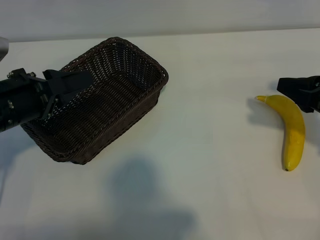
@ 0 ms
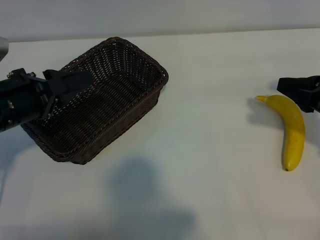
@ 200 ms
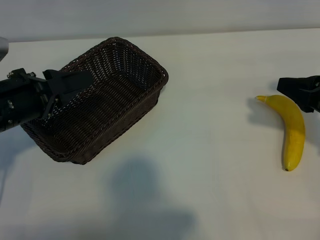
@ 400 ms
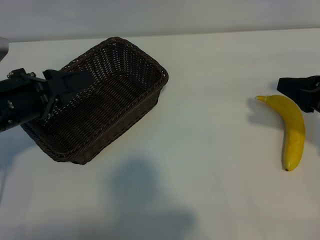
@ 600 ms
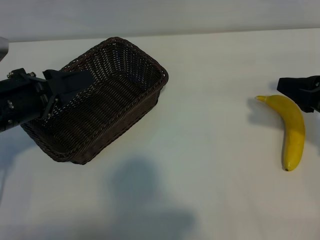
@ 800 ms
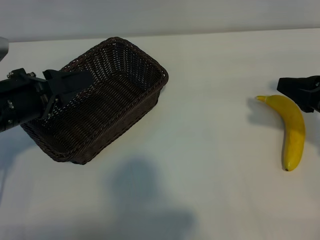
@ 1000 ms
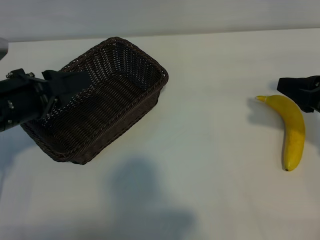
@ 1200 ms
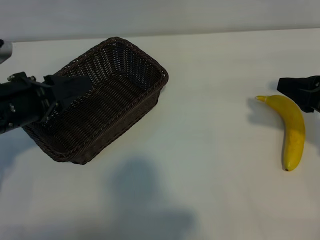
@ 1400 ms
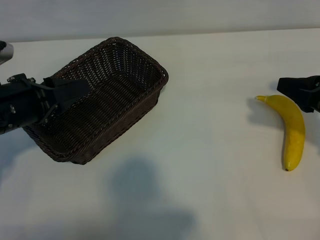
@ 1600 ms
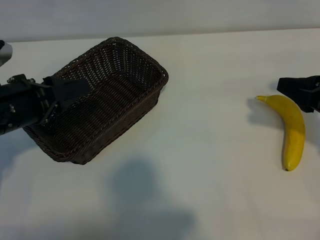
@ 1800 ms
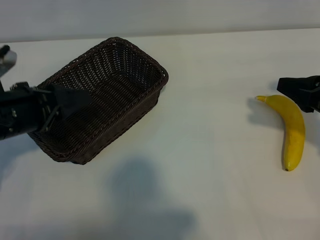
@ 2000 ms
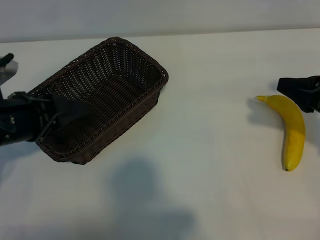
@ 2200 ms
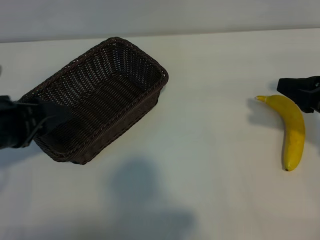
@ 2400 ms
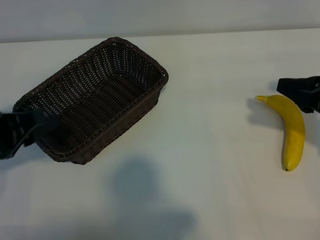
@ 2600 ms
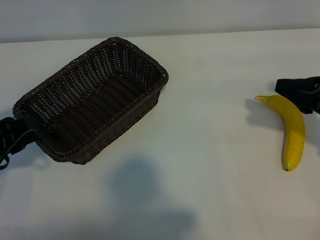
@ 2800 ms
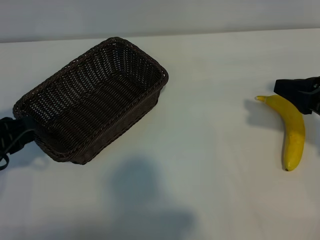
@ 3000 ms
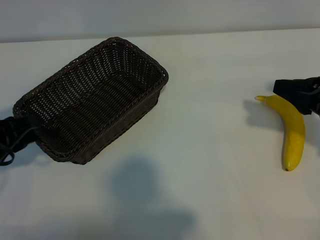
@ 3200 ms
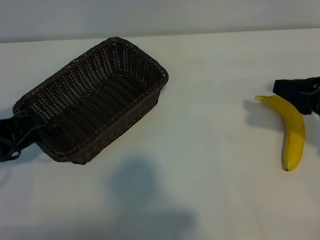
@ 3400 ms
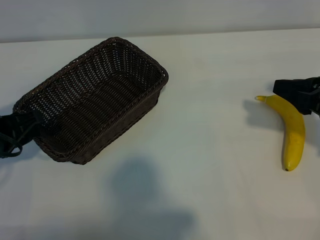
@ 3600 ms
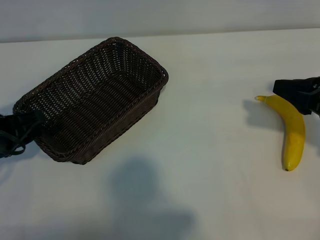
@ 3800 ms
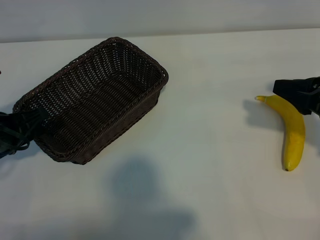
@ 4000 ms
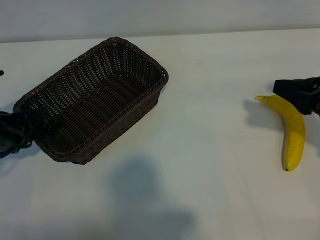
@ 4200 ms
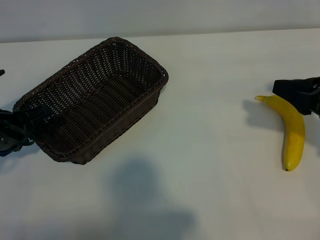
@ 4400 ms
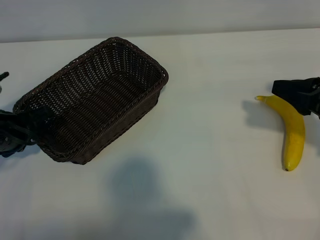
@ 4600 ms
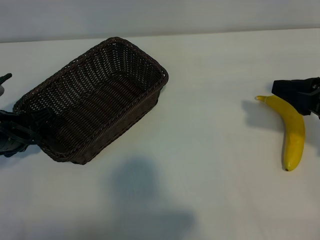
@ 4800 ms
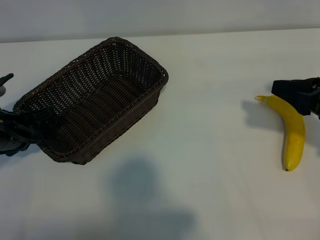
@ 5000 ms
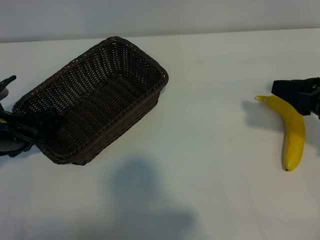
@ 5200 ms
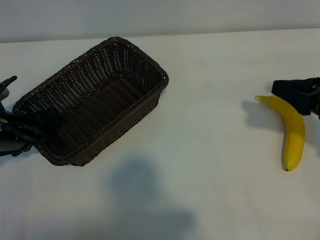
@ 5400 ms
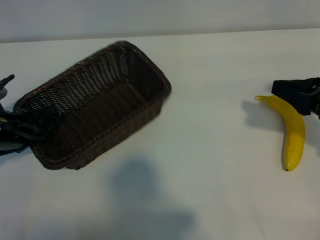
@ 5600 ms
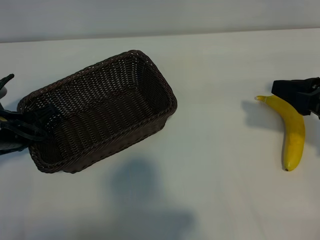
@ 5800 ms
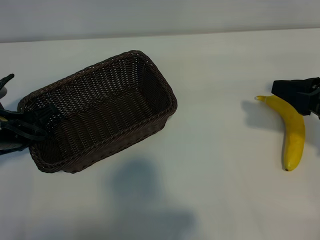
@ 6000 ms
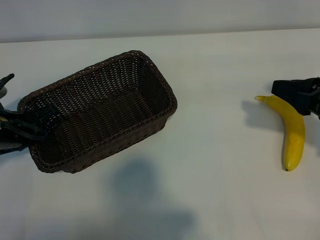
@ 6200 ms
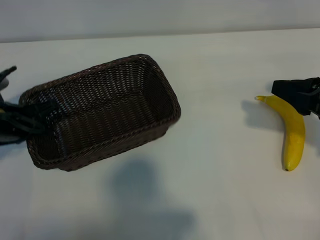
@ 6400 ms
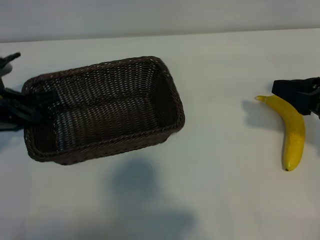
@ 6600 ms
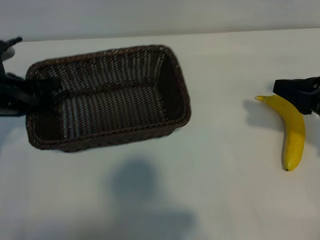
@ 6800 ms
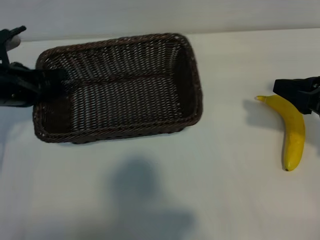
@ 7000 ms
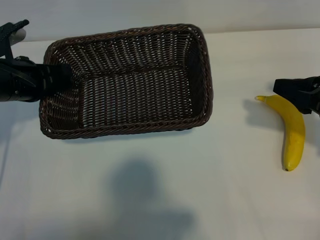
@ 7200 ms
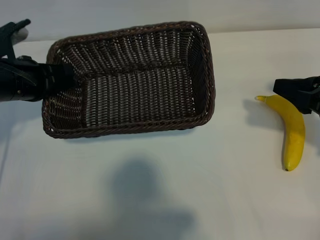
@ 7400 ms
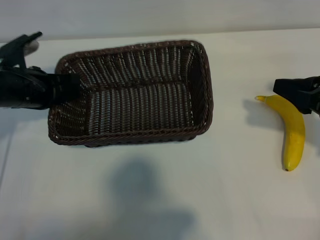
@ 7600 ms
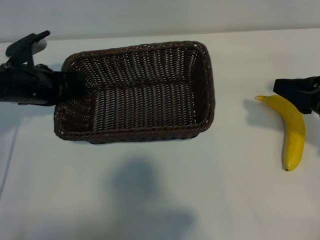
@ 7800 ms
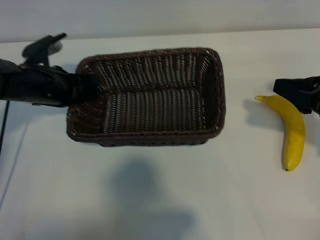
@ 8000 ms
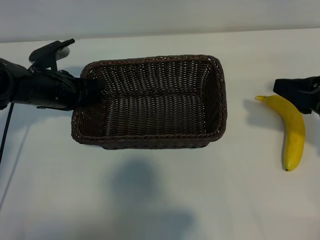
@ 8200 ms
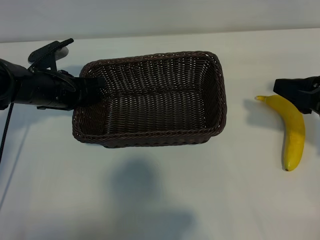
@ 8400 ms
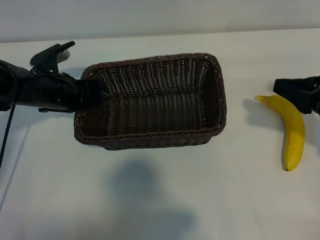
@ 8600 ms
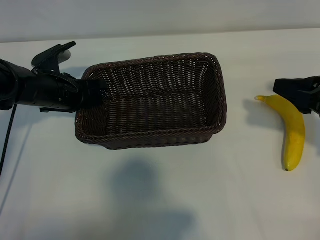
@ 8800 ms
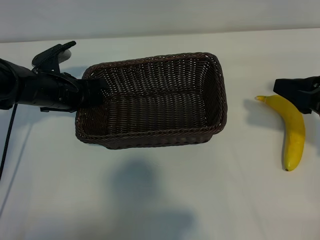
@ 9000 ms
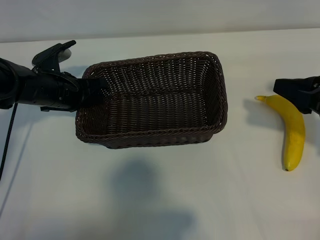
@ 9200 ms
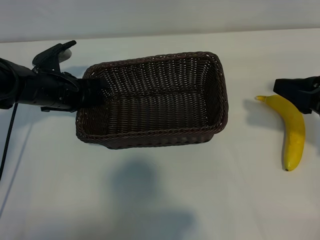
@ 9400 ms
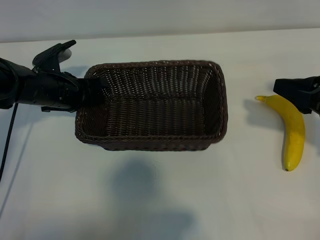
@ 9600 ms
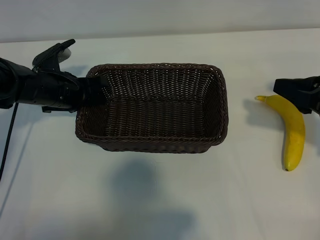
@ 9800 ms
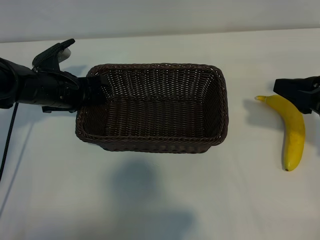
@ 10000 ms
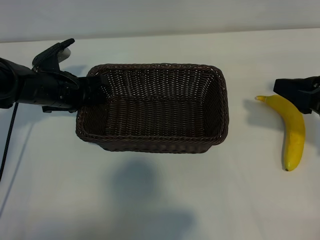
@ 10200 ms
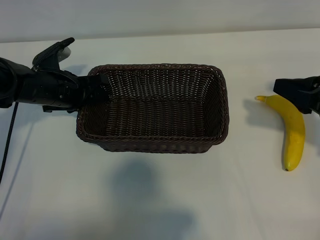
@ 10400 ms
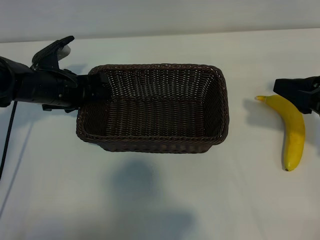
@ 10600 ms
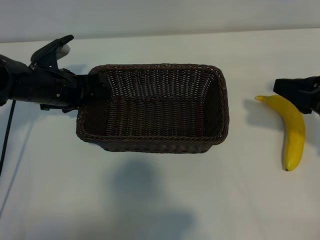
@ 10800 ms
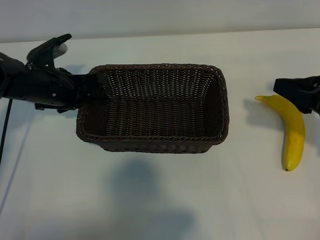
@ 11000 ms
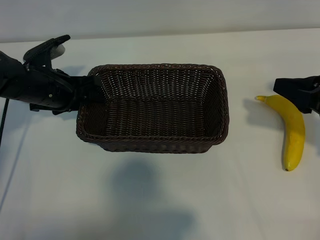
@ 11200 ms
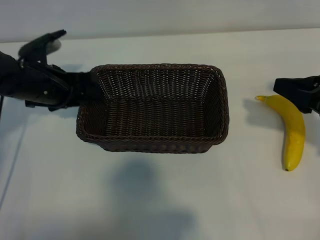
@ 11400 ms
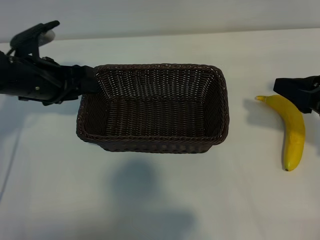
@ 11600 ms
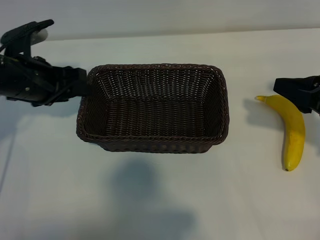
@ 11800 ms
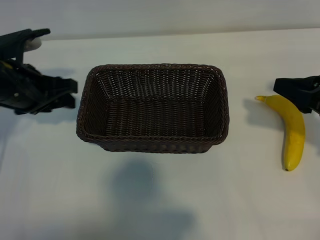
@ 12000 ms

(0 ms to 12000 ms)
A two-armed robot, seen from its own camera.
Task of the whole recording: pick up the banana and put it into the basket.
Step, 1000 ms - 6000 ms: Grasp the basket with the left gripper.
Step, 6400 ms - 11400 ms: Place the basket in the center of the table with the left gripper.

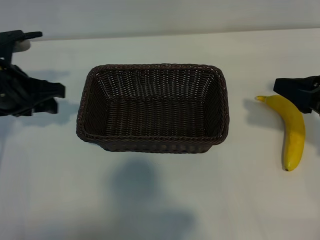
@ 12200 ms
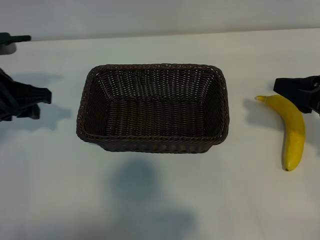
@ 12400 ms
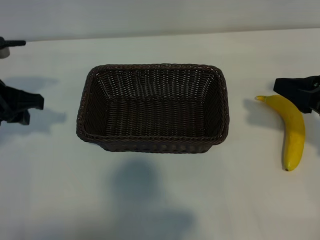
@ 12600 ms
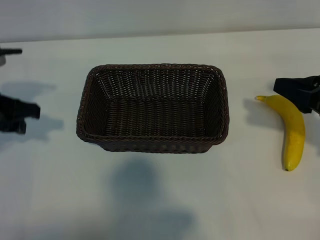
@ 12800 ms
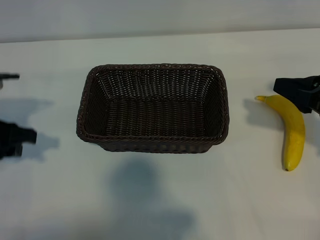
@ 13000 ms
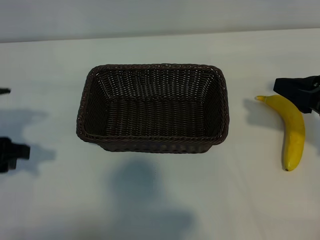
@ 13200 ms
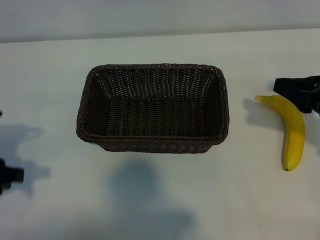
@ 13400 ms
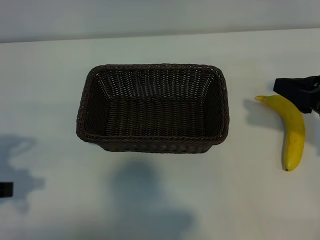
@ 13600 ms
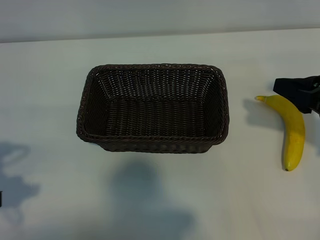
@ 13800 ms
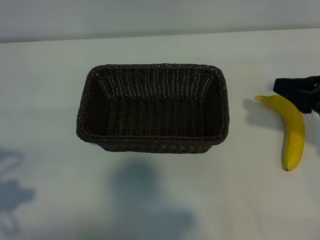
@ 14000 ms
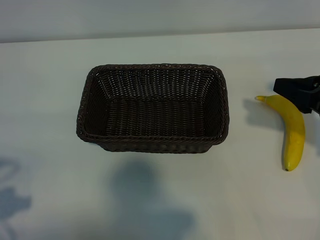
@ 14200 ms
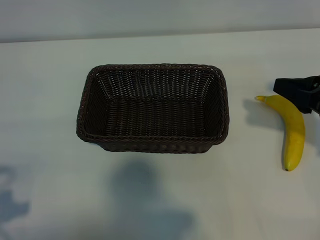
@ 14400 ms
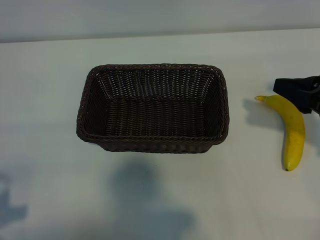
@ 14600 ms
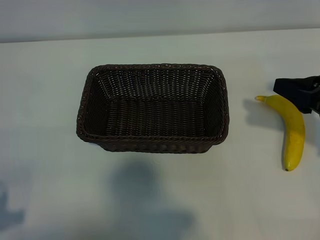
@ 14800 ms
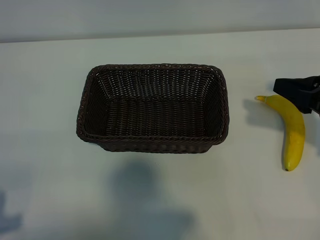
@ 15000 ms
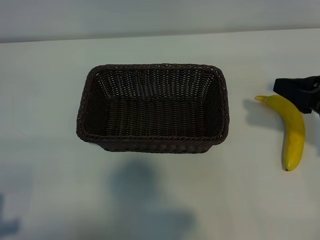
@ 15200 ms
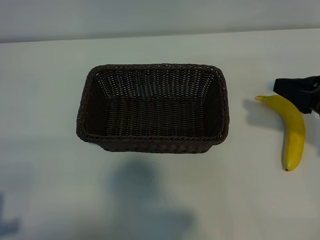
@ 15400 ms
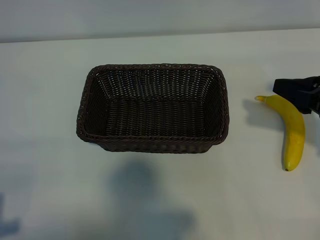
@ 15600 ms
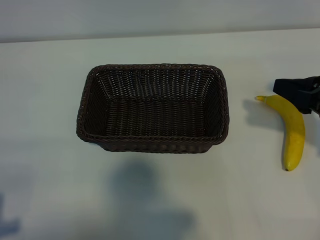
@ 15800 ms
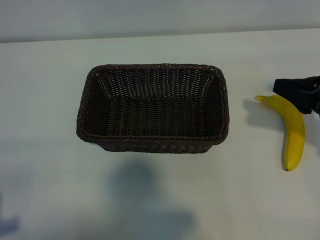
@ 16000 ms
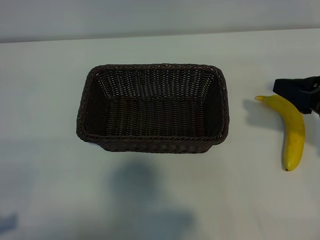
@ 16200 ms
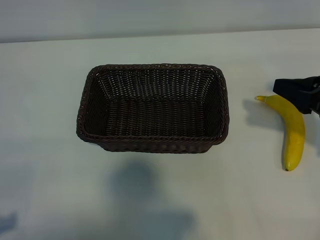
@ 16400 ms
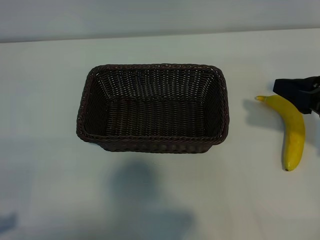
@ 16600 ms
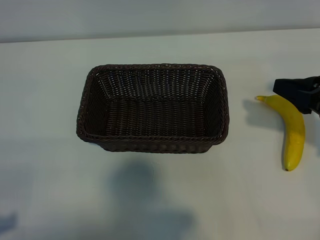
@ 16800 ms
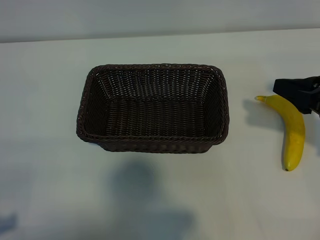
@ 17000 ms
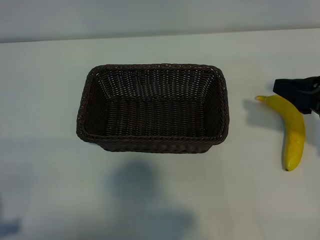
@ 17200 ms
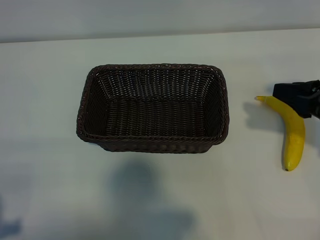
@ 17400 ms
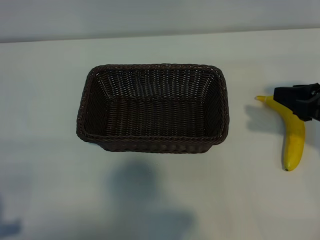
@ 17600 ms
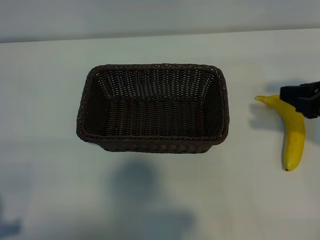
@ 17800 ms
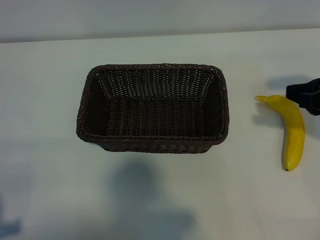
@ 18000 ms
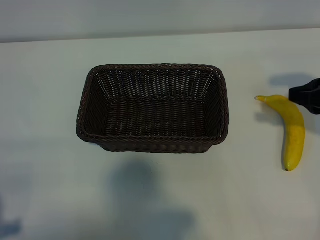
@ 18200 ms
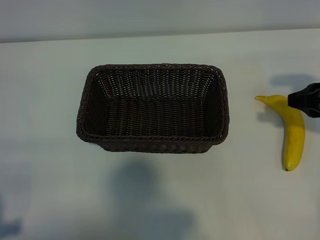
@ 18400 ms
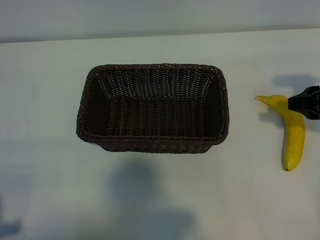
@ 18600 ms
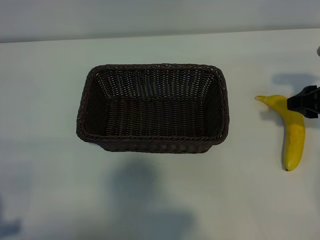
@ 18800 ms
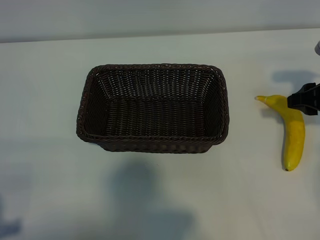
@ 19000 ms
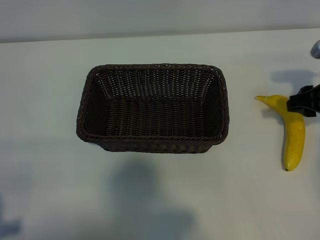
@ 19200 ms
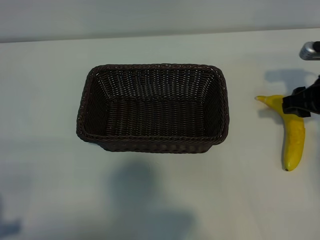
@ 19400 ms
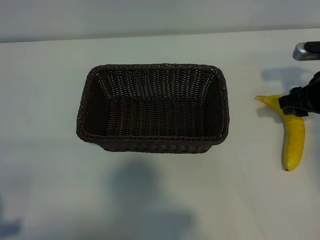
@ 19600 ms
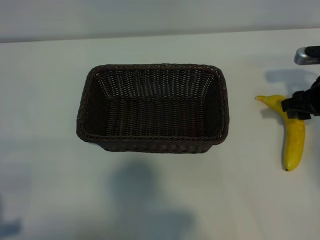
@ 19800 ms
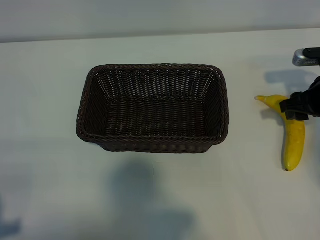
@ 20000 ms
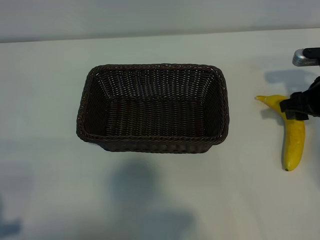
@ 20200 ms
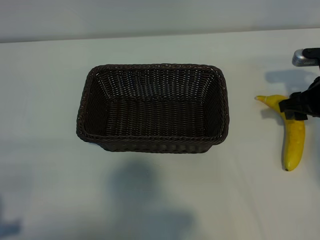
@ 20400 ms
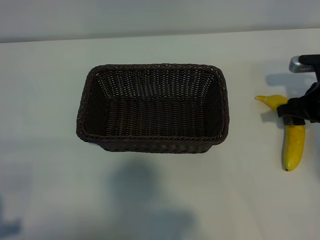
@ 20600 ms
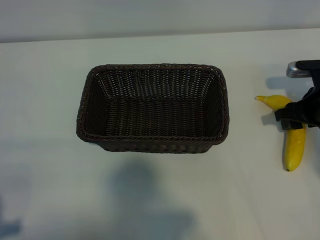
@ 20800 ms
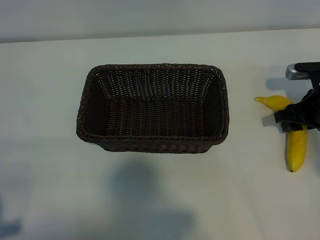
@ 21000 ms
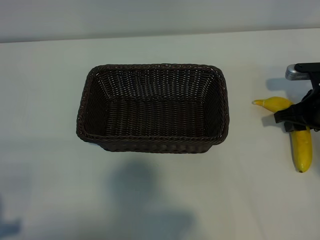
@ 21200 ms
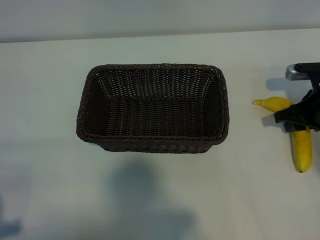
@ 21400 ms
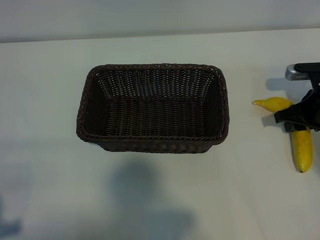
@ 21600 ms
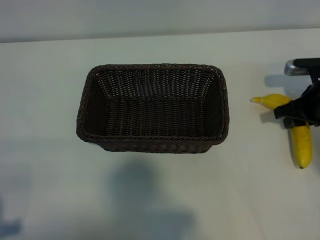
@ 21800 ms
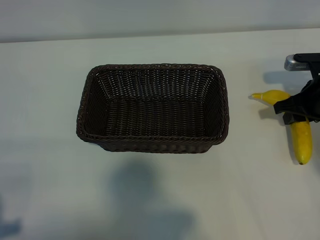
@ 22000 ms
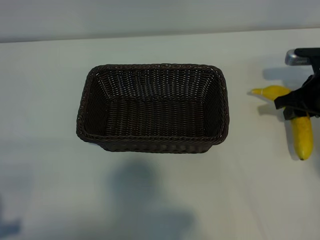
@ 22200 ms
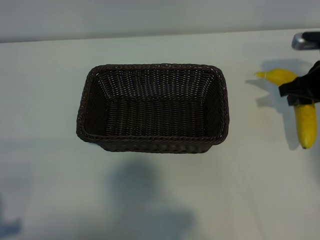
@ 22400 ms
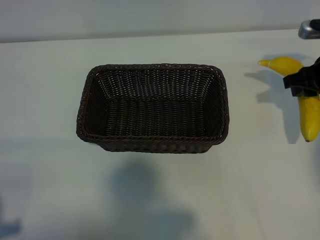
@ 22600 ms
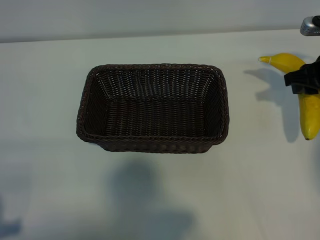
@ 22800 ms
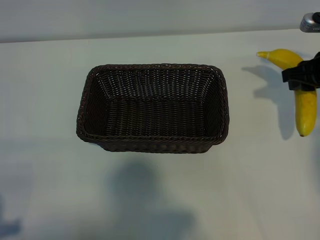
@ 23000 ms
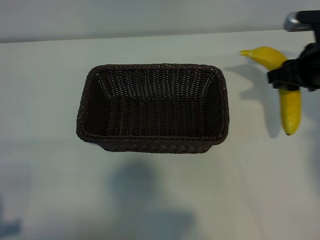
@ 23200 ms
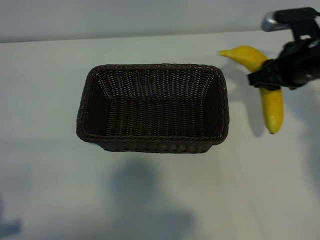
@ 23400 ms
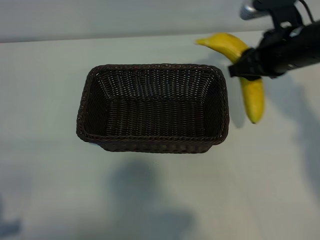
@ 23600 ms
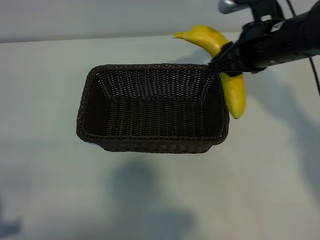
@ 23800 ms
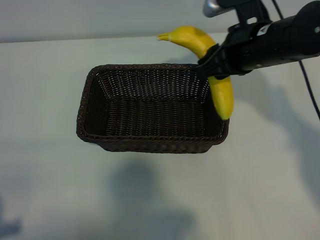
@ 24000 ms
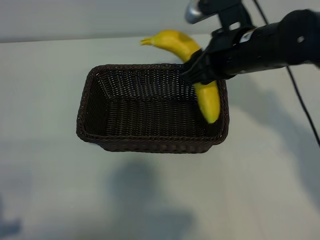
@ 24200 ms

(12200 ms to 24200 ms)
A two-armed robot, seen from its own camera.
Task of the whole recording: pick up the banana and put it into the basket.
Step, 12200 ms - 21200 ms: Grasp the banana with right gripper.
